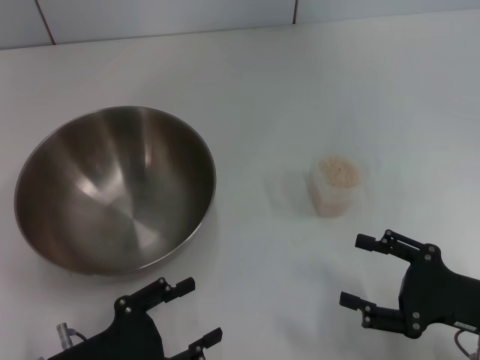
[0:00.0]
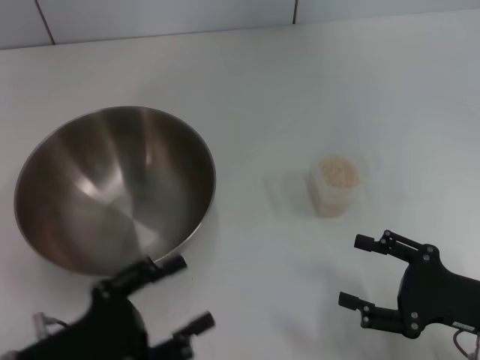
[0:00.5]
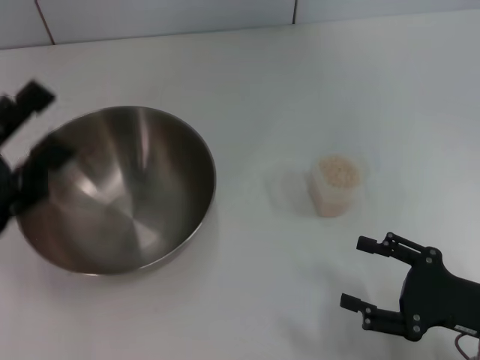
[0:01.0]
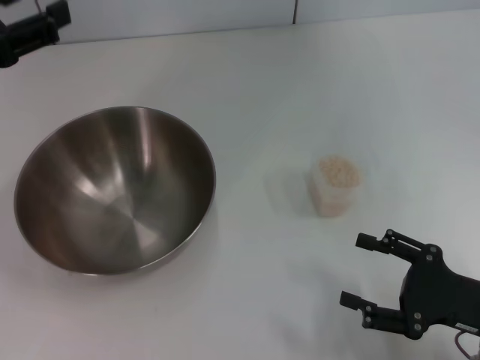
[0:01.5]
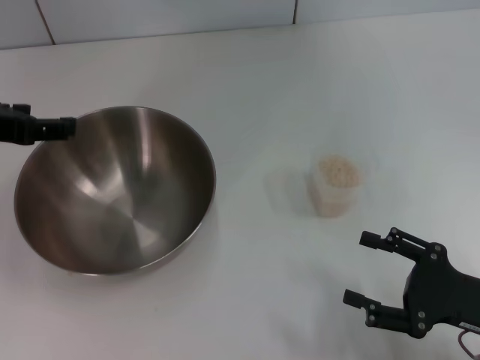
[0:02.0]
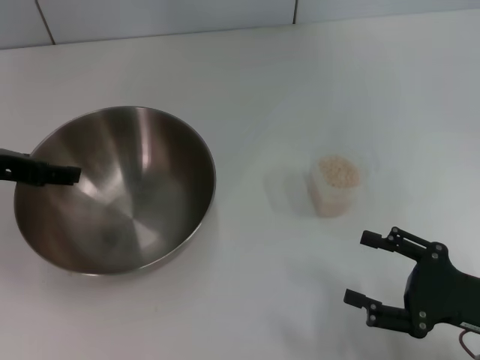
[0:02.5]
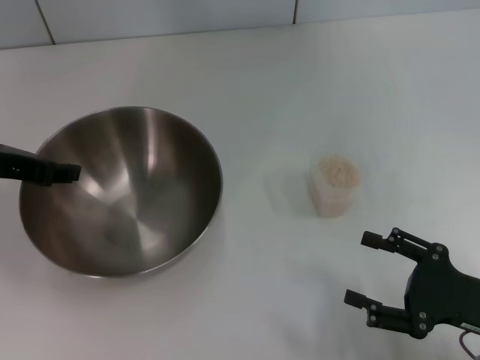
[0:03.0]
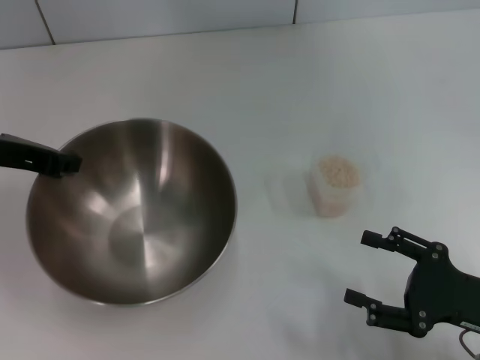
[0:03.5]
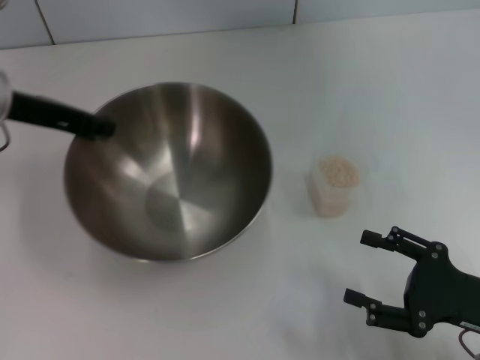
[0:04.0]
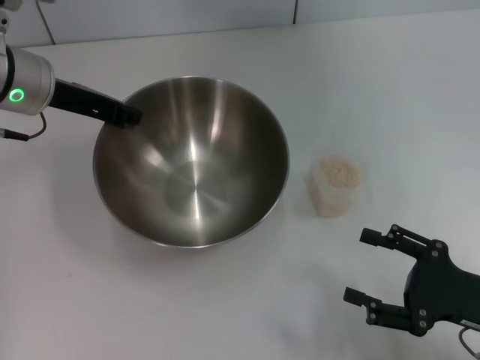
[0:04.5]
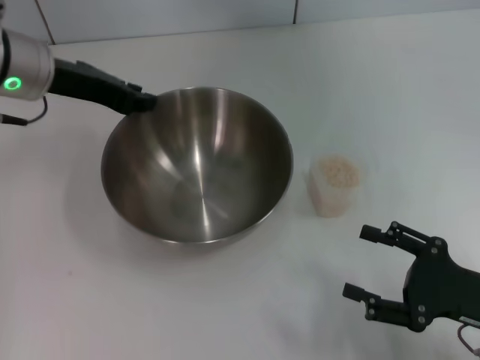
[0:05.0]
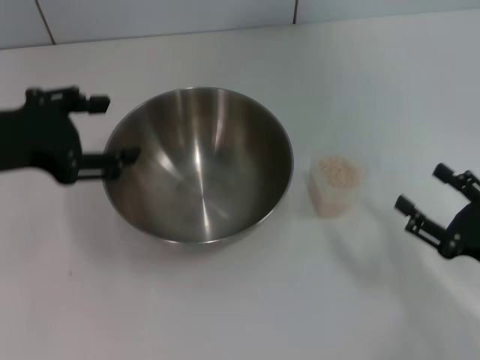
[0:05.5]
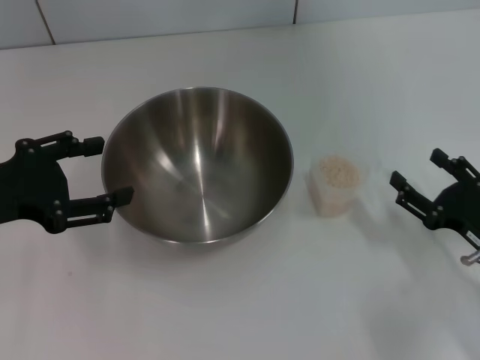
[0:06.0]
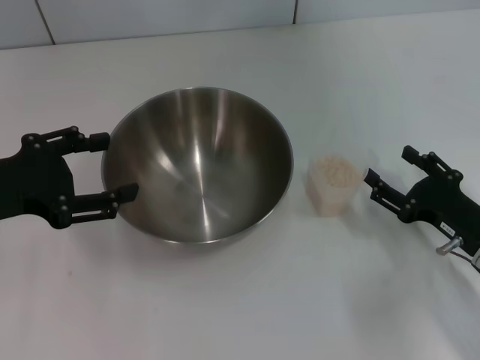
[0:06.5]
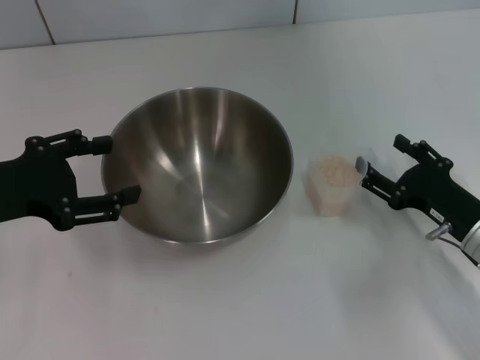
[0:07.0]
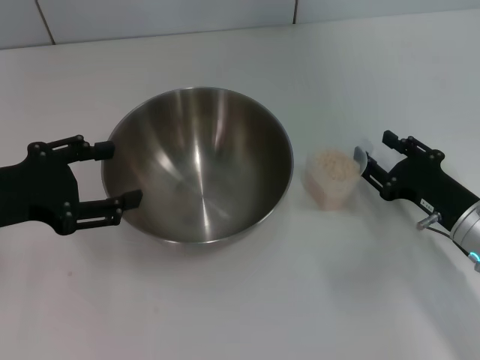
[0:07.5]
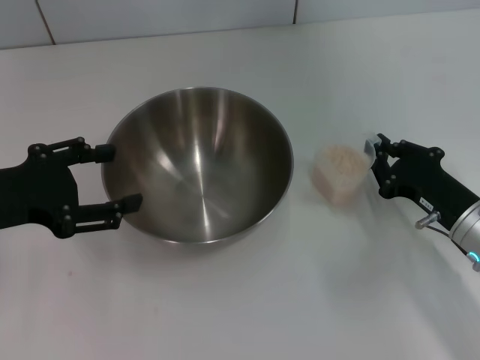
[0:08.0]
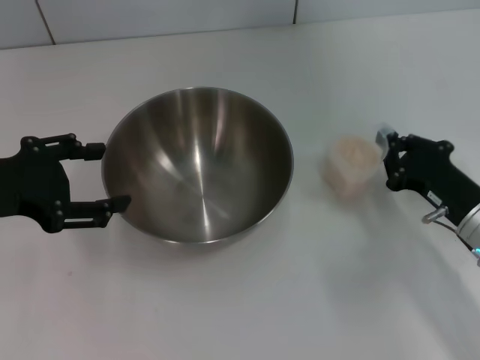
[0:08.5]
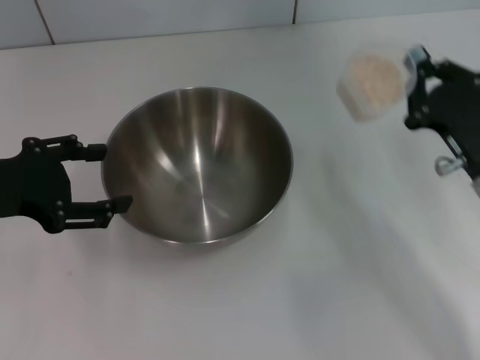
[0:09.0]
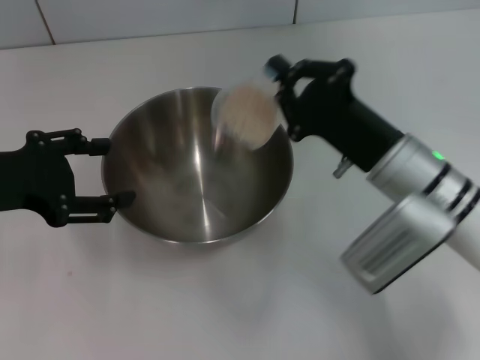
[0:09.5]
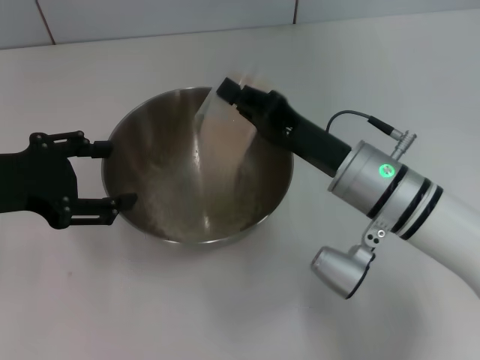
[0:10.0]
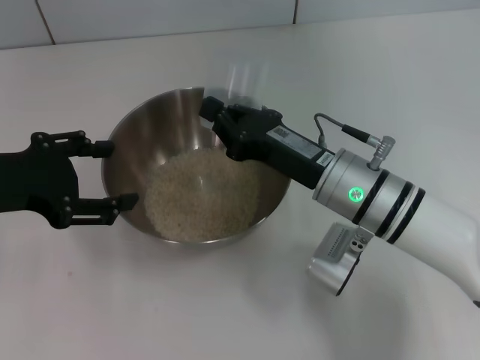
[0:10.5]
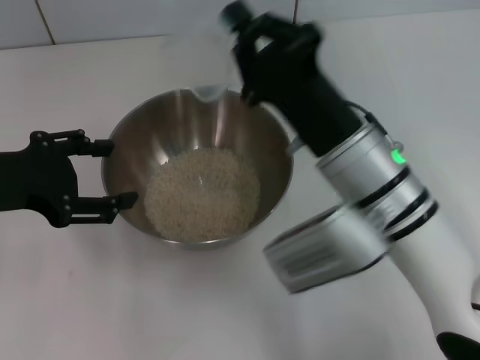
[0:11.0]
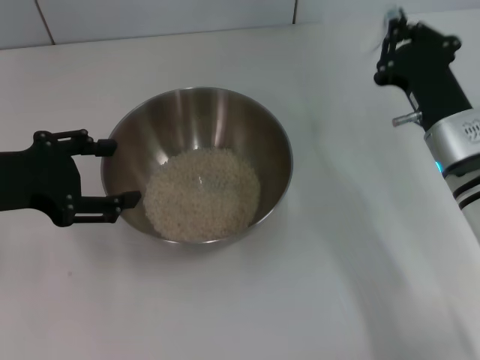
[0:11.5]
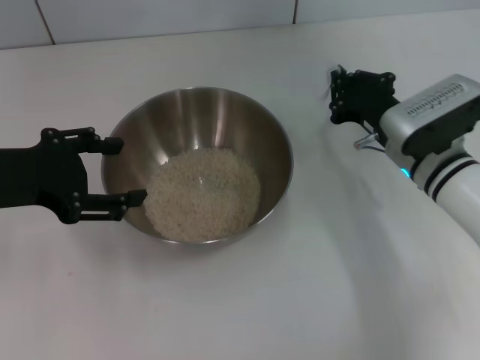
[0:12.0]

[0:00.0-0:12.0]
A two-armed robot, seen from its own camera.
Task of the whole recording: Place the bowl in the middle of the table with one hand and pour the rice from the grain cup into it with the other hand.
Step, 0:00.0 to 0:03.5: Pick up the bowl with the left gripper.
Step, 0:04.5 to 0:05.0: Place the bowl in the center of view with the left gripper.
Step, 0:06.0 to 0:08.5: Pick up the cup with rice in it with the right gripper.
Step, 0:09.5 to 0:11.0: Pour the rice from the cup into the bowl with the right gripper.
0:00.0 to 0:02.0: The left gripper moves upward and forward, some 25 cm.
0:02.0 to 0:04.0: The left gripper is displaced forward by about 5 cm, and closes up.
0:04.0 to 0:06.0: The left gripper heads backward and to the left, covering about 15 cm, and opens up.
0:06.0 to 0:08.0: The right gripper ends up about 5 cm from where it was, and closes its fingers.
0:08.0 to 0:10.0: The right gripper moves to the left and upward, approximately 15 cm.
0:10.0 to 0:12.0: The right gripper is displaced to the right by approximately 5 cm.

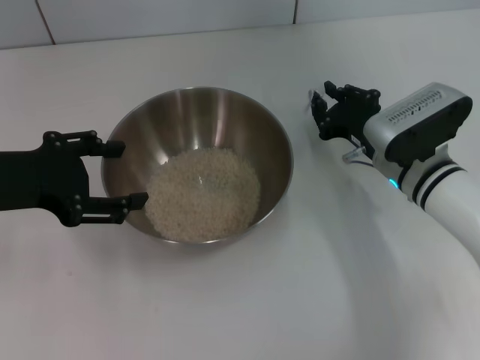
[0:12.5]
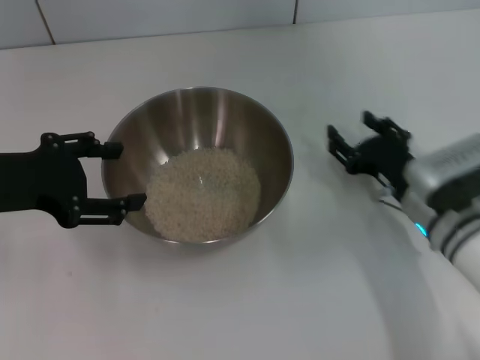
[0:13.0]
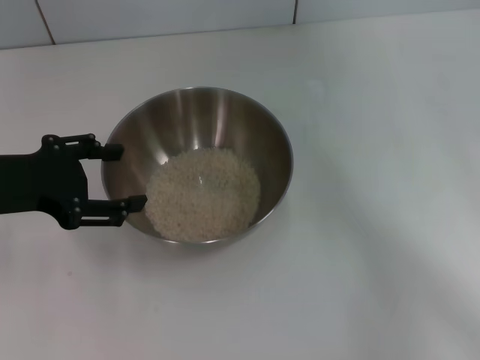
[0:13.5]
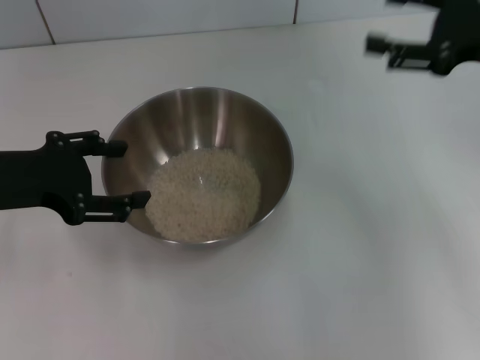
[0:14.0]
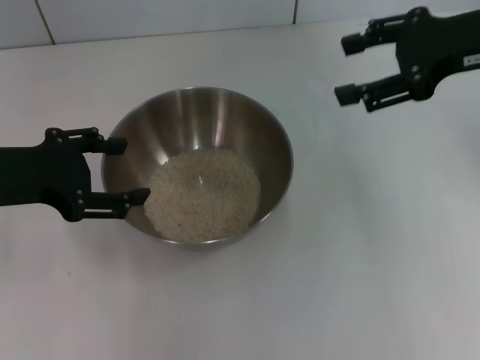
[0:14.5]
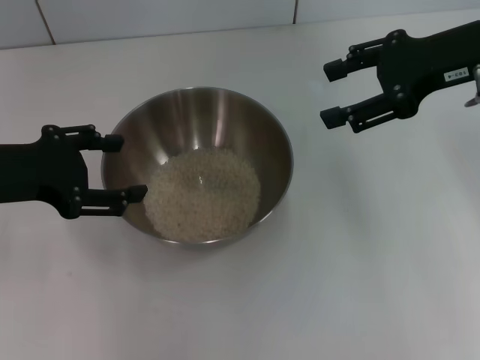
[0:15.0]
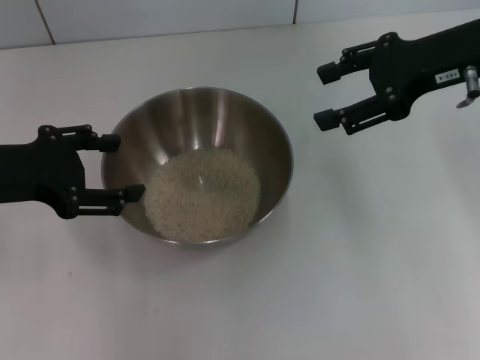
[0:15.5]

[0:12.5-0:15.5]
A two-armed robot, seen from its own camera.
Task of the whole recording: Place the bowl in the middle of the table with one hand and pour the rice from the grain cup into it with the other hand.
0:12.5 to 0:14.0: The right gripper is displaced upward and to the right by roughly 20 cm, and opens.
0:14.0 to 0:15.5: The right gripper heads to the left, covering approximately 5 cm.

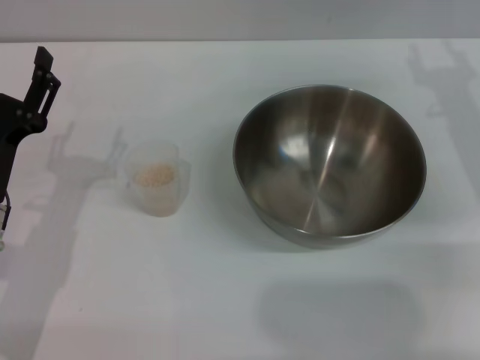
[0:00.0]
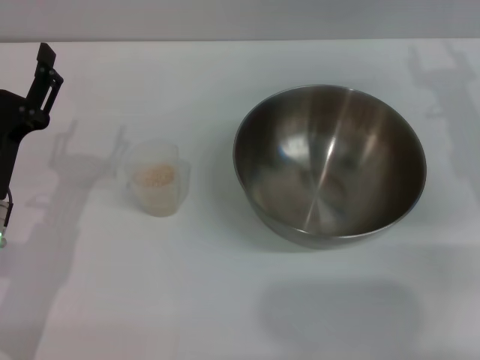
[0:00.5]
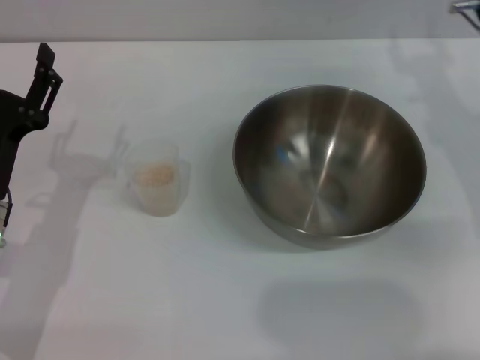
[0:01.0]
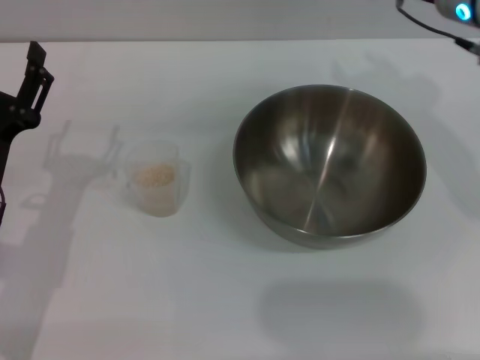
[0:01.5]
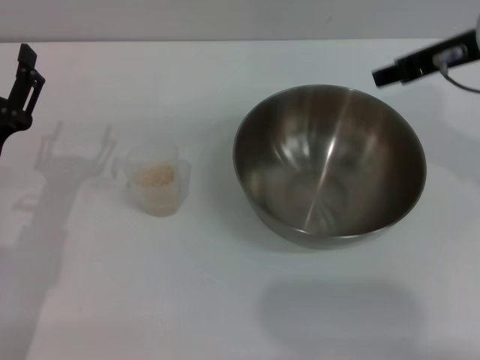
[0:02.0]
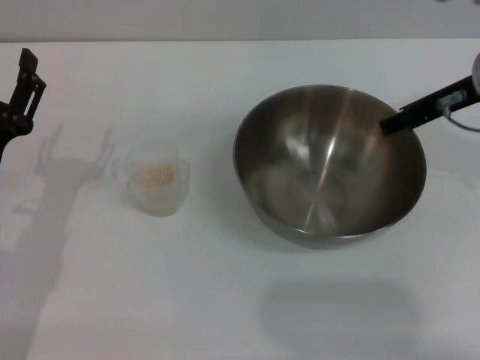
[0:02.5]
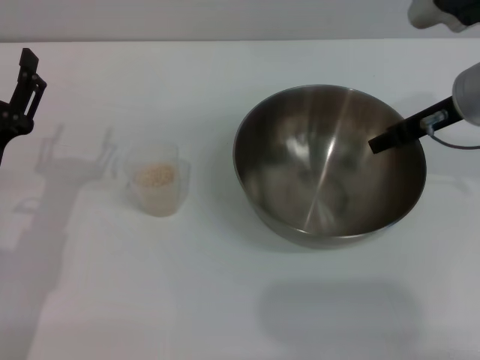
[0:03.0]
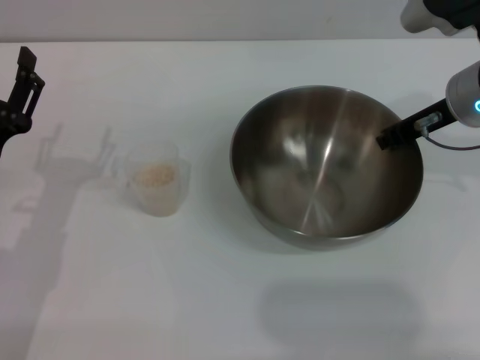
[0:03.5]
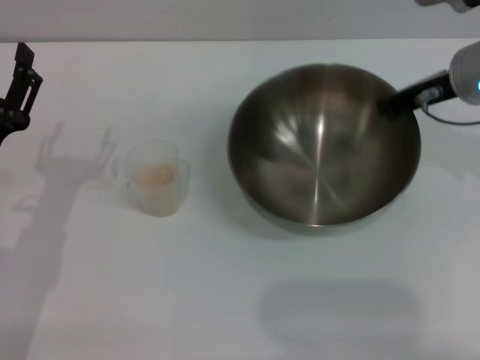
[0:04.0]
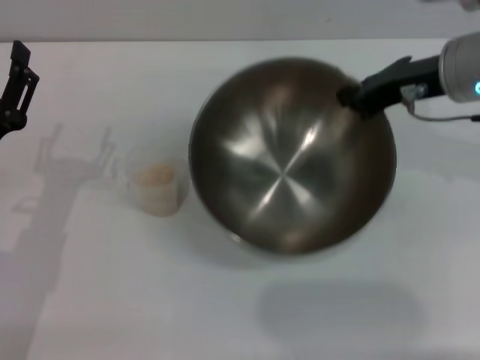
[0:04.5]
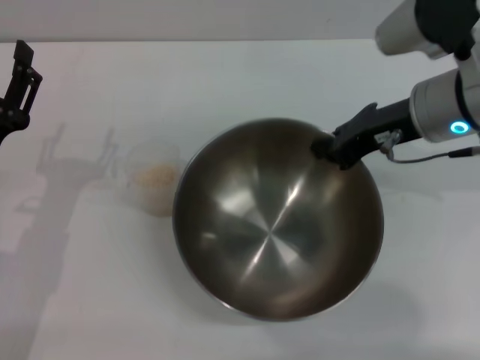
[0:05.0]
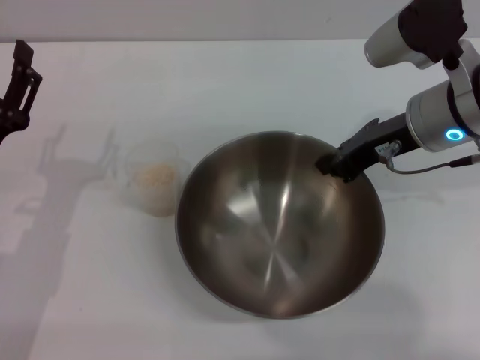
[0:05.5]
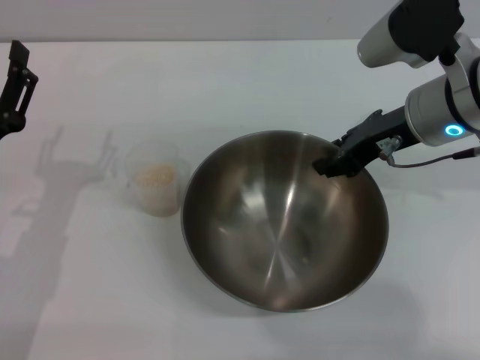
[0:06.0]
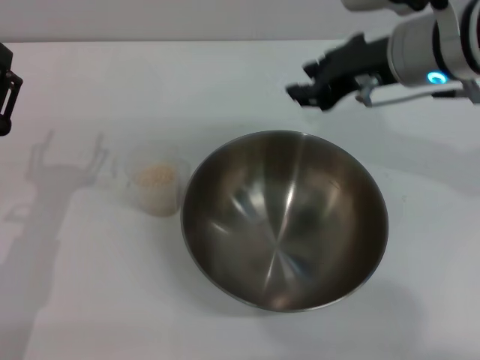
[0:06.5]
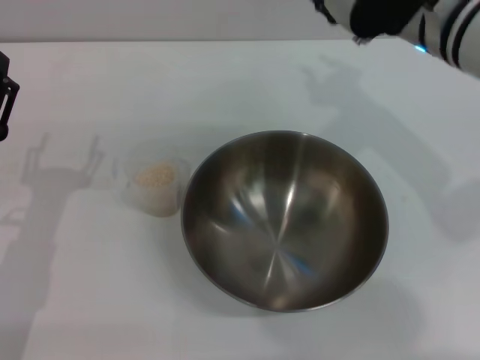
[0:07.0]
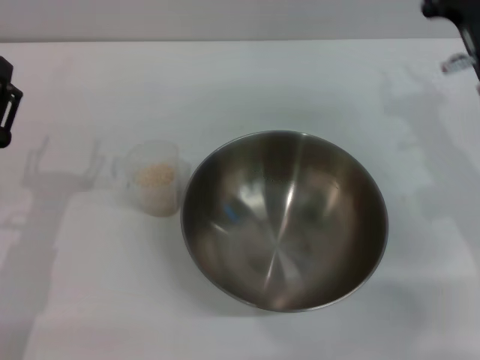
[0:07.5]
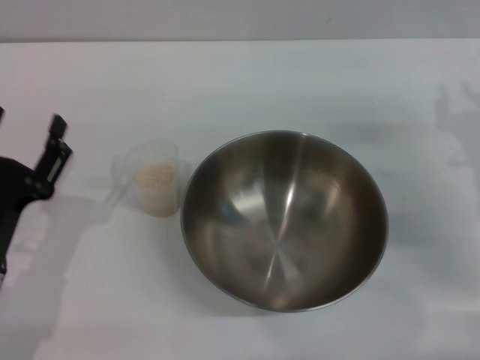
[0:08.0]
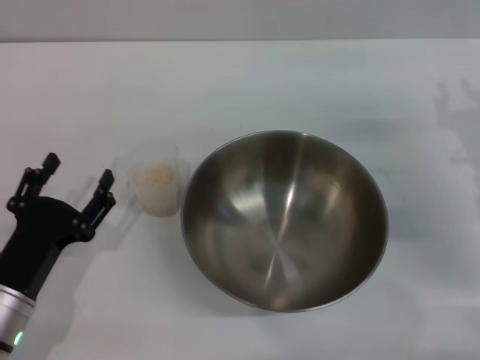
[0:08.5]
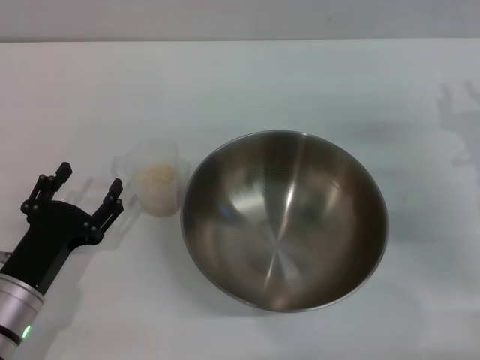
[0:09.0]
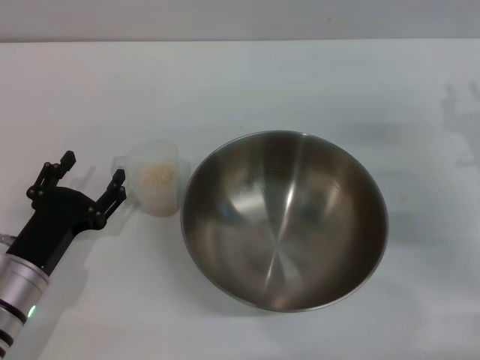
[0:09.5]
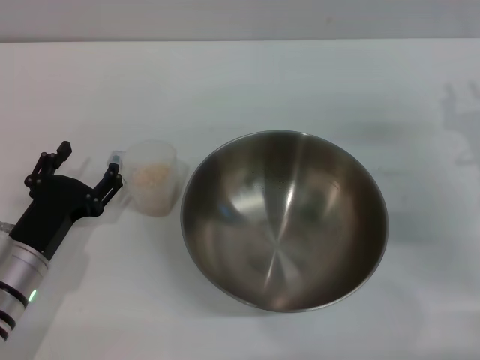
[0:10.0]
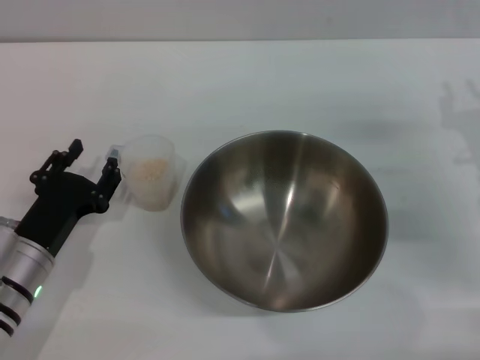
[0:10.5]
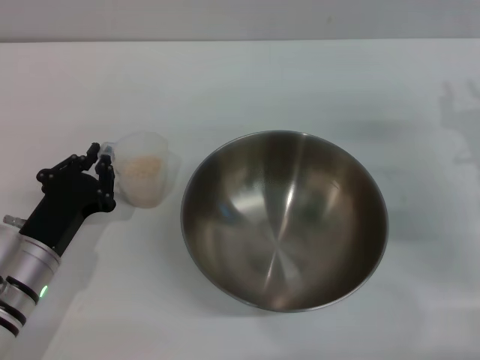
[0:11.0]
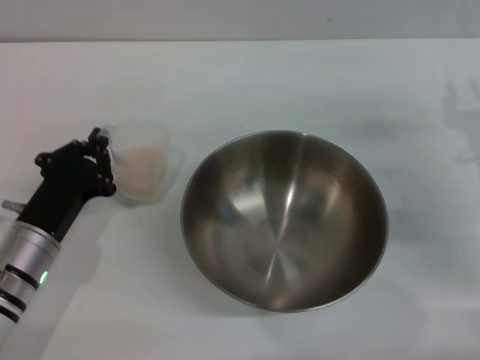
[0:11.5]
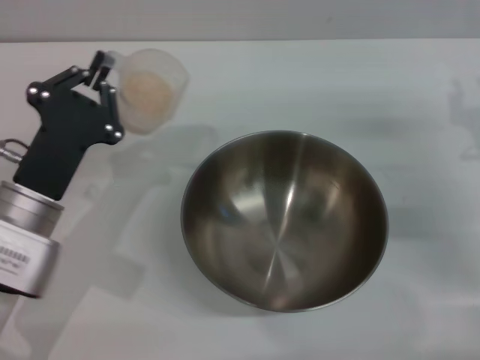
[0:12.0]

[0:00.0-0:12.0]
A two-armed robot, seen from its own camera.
Task of the whole recording: Place the bowl in the middle of the table with one hand and pour the rice from the grain cup into it with the other hand.
Step, 0:00.0 to 0:04.0: Pick up the bowl with the right gripper.
Step, 0:04.5 to 0:06.5: Place the bowl in the center of view with the right gripper.
Step, 0:07.0 to 0:11.5: Pick up the cup with rice in it with the left gripper.
0:00.0 to 0:02.0: The right gripper shifts some 15 cm upward and to the left.
0:02.0 to 0:04.0: The right gripper moves downward, roughly 5 cm, and closes.
0:06.0 to 0:08.0: The right gripper is displaced to the right, downward and backward by about 15 cm; the left gripper moves some 5 cm.
0:08.0 to 0:10.0: The left gripper moves approximately 5 cm.
0:10.0 to 0:12.0: The left gripper goes about 5 cm upward, and closes up.
